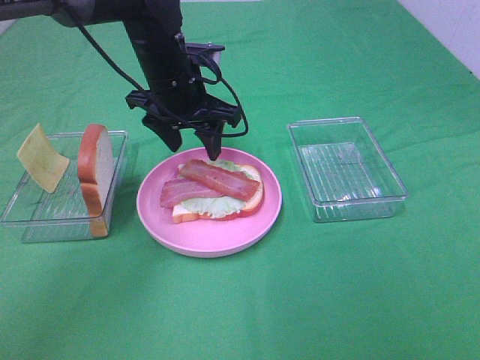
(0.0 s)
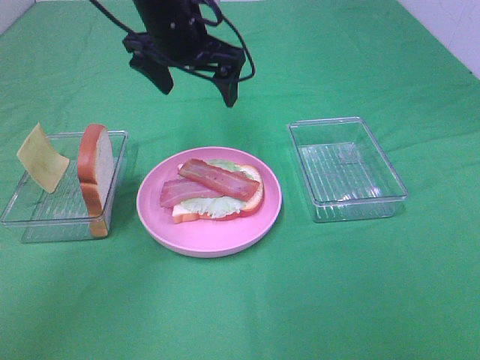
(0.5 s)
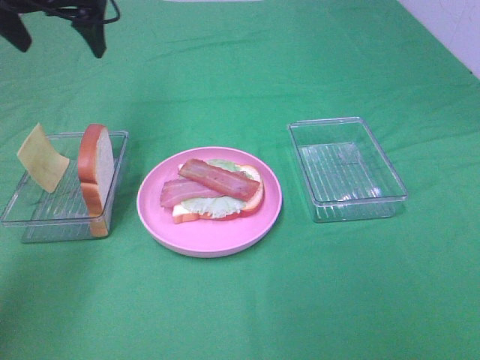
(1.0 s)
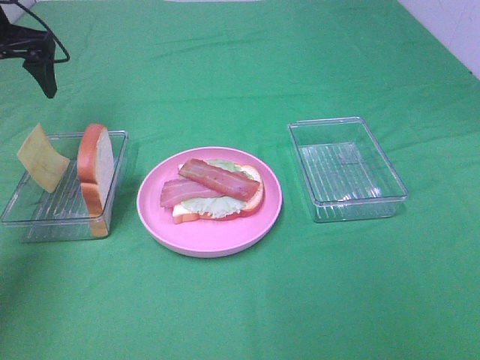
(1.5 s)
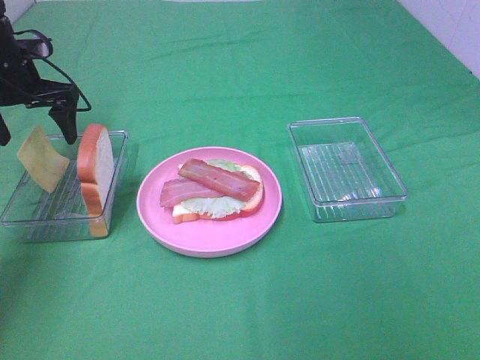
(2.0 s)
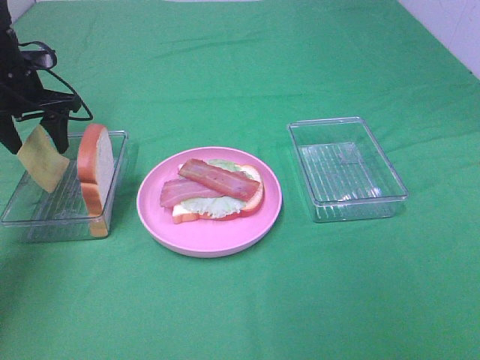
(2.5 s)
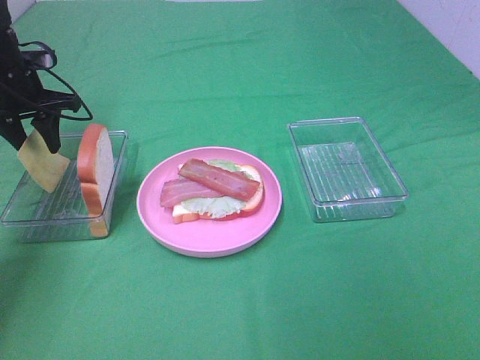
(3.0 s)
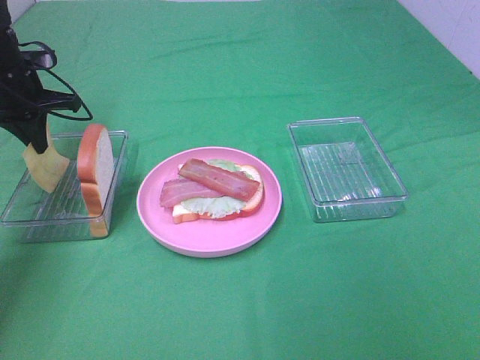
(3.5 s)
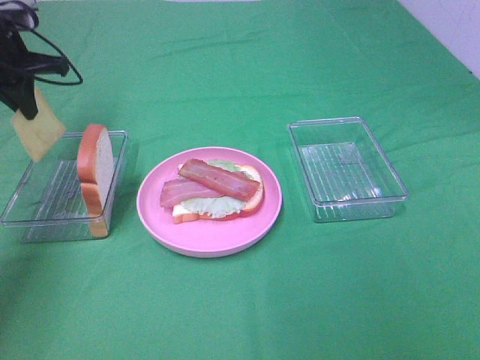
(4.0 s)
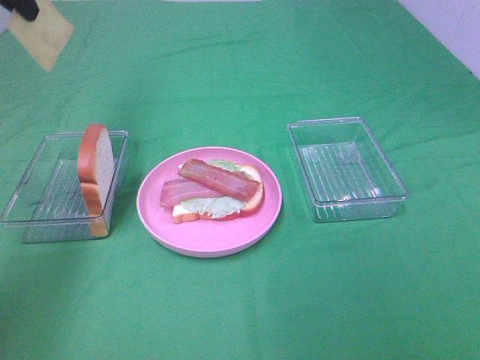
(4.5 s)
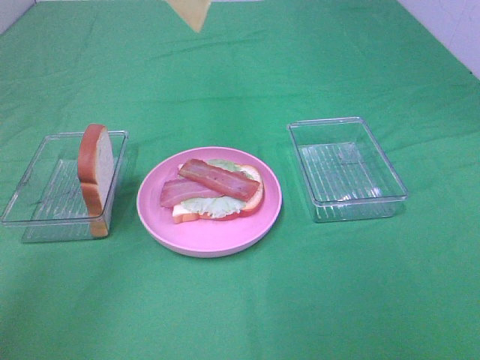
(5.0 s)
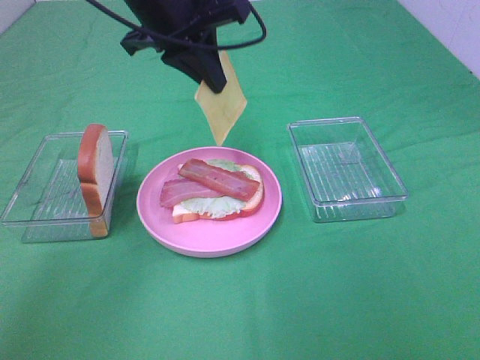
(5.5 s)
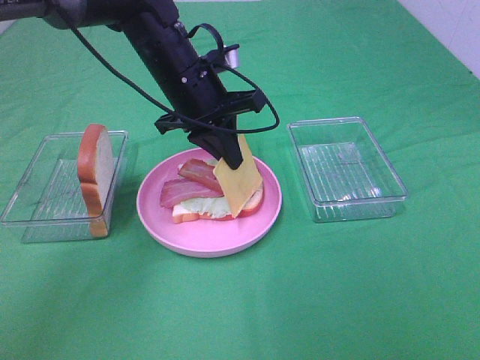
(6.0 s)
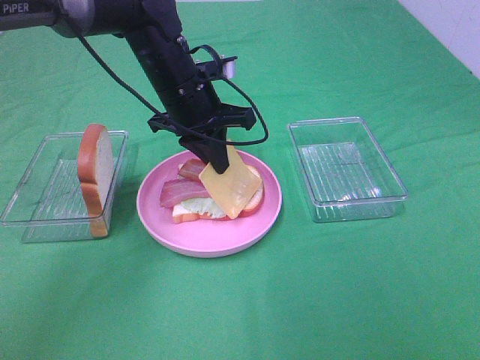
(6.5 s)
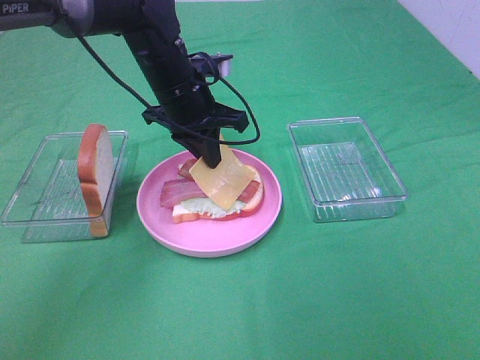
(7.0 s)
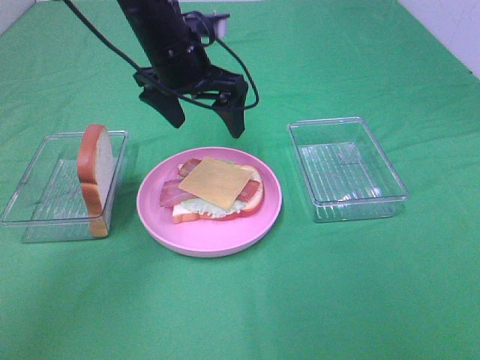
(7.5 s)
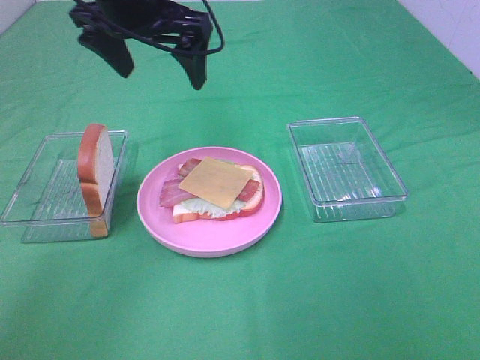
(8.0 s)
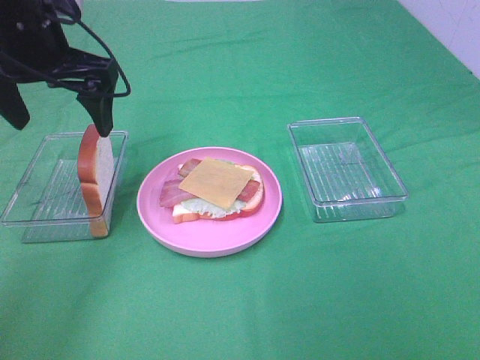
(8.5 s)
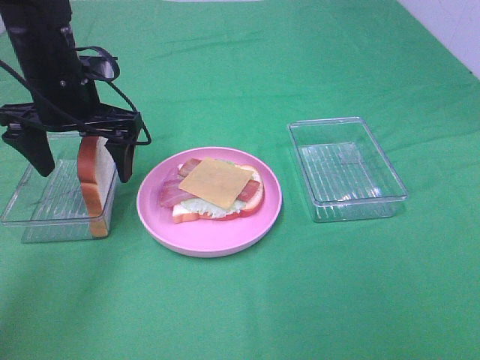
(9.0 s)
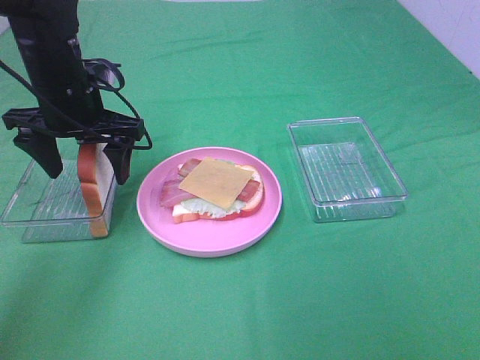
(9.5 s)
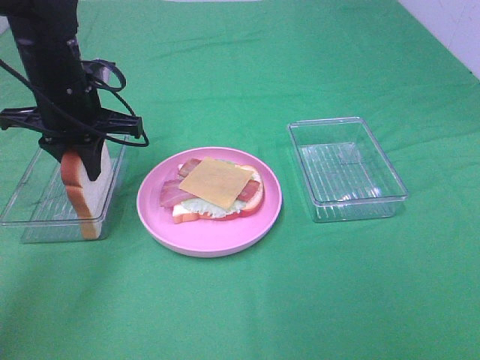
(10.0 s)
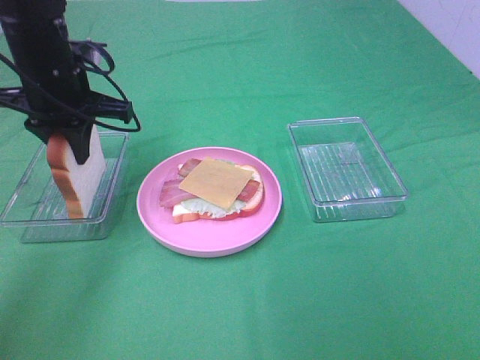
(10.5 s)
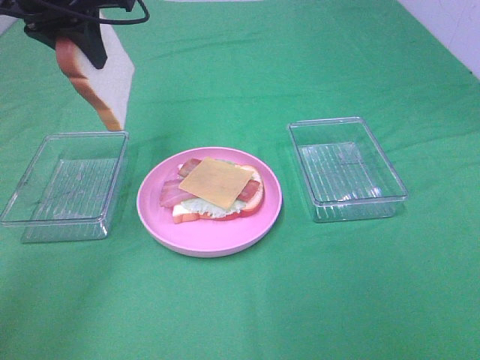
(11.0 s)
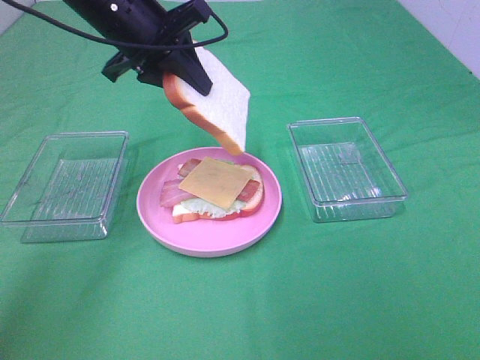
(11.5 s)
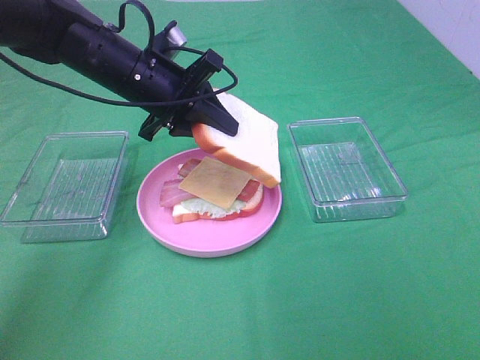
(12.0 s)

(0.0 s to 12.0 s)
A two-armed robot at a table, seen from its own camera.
Task of the whole recording: Make sandwiches.
Step, 0.5 s - 3.5 s: Left hand:grab the cheese slice.
Step, 4.0 s - 7.0 s: Left hand:place the cheese slice on top of the bacon.
Step, 7.5 s - 9.5 s: Left hand:grab the bread slice.
0.0 s - 2.0 s: The left gripper goes about 25 cm to the left.
2.0 s - 4.0 s: The left gripper moves upward, some 5 cm, and closes its fingers.
4.0 s - 6.0 s: The left gripper goes some 25 cm to the right.
6.0 s - 8.0 s: The left gripper is displaced upward and to the left by roughly 15 cm, and opens its fingers.
8.0 s - 10.0 s: The left gripper travels downward and to the left by approximately 15 cm, and closes.
10.0 s - 12.0 s: The left gripper travels to the right by approximately 5 cm, and moves some 15 cm upward and comes back.

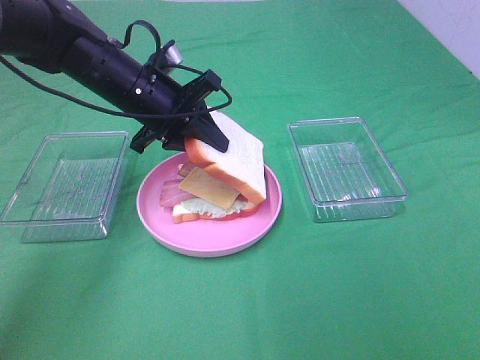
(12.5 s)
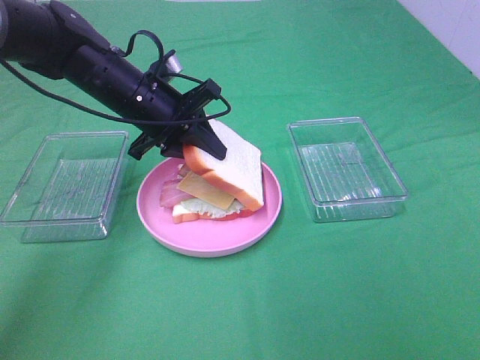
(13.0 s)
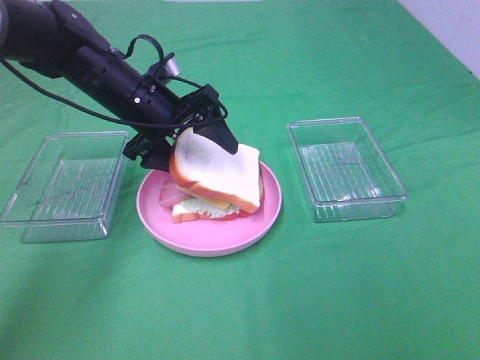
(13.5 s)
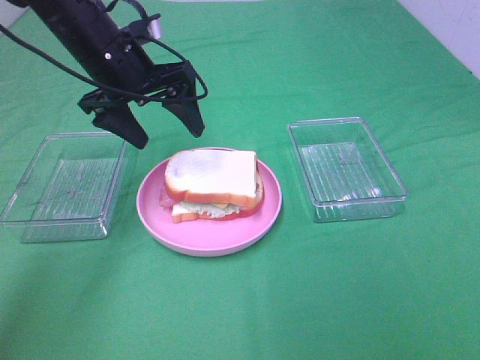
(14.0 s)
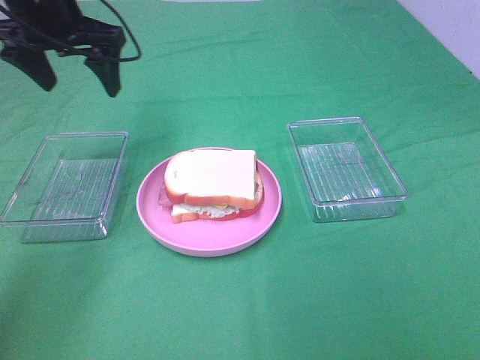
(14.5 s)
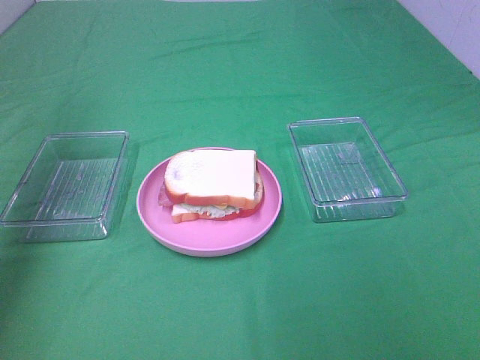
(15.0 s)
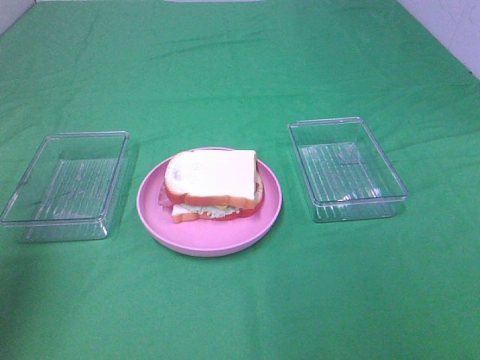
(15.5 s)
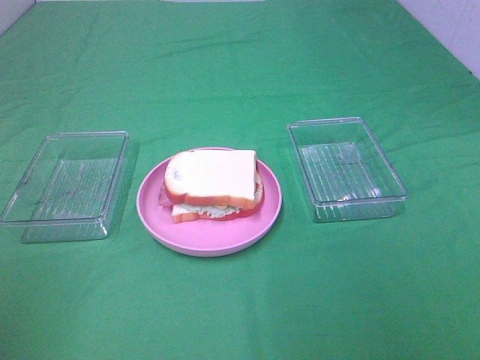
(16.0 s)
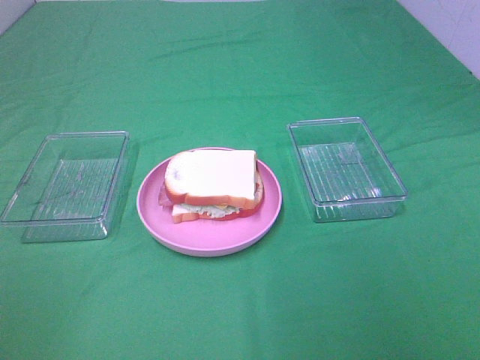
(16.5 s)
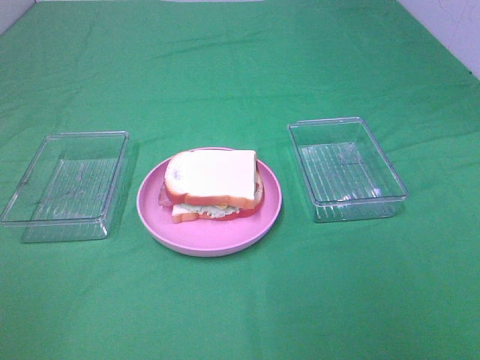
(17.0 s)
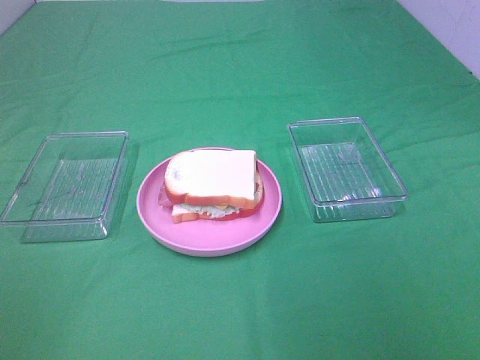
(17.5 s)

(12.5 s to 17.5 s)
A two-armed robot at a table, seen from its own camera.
Task of the whole recording: Make sandwiches.
12.5 s - 15.0 s: The left gripper shifts roughly 25 cm to the left and upward, and opens.
15.0 s - 17.5 s: The left gripper travels backward by about 35 cm.

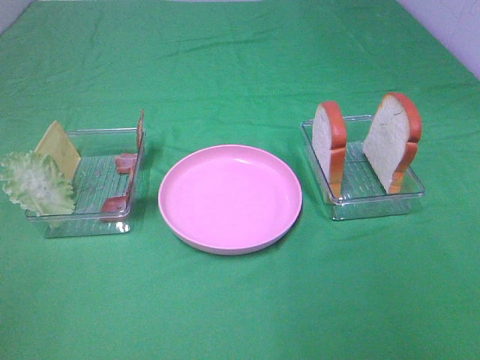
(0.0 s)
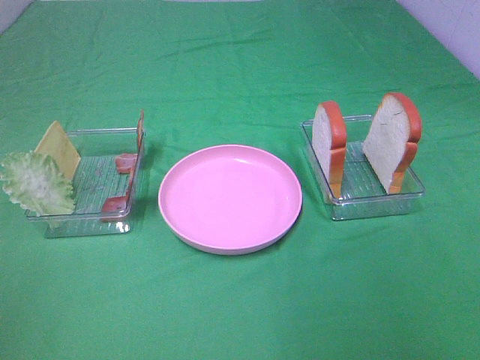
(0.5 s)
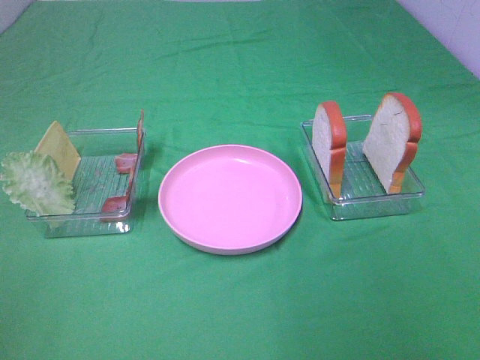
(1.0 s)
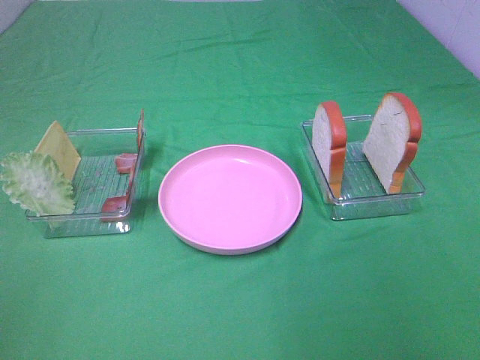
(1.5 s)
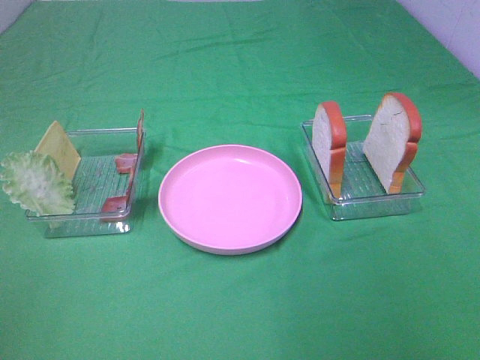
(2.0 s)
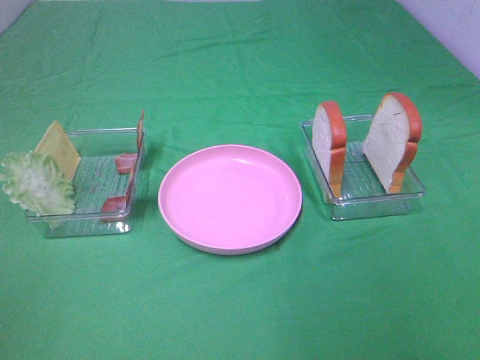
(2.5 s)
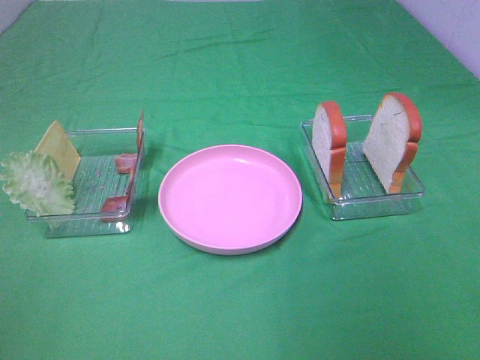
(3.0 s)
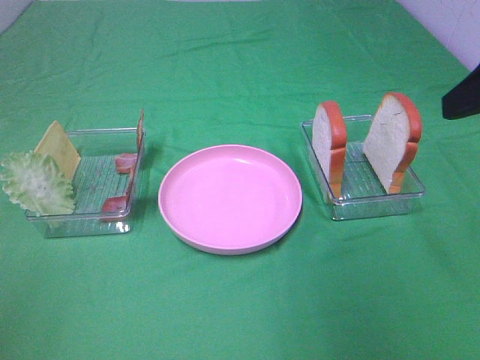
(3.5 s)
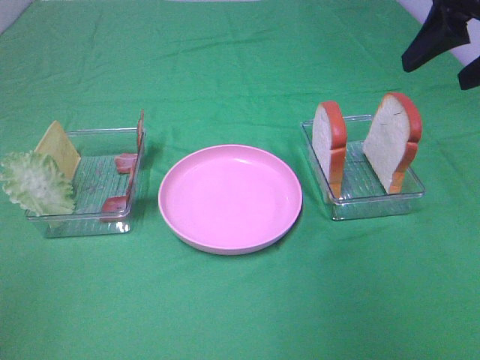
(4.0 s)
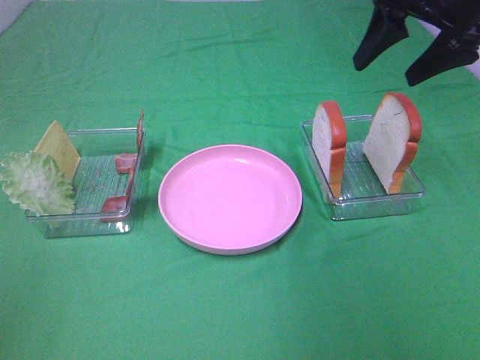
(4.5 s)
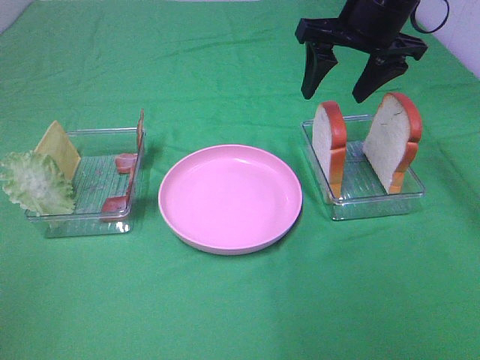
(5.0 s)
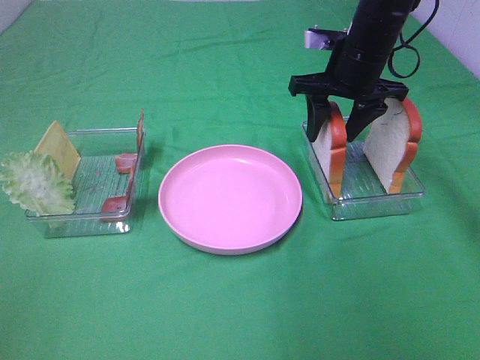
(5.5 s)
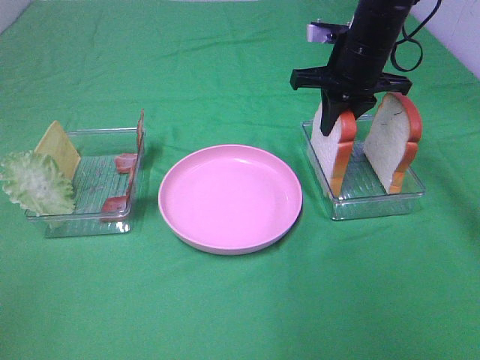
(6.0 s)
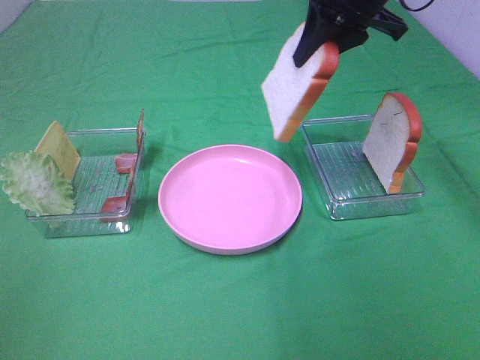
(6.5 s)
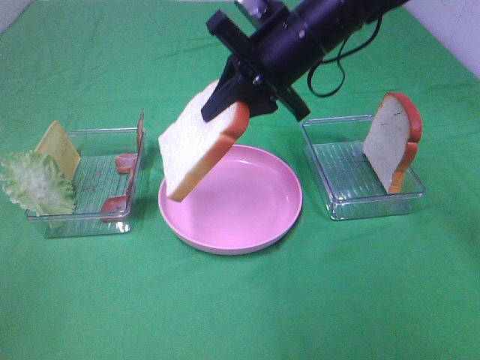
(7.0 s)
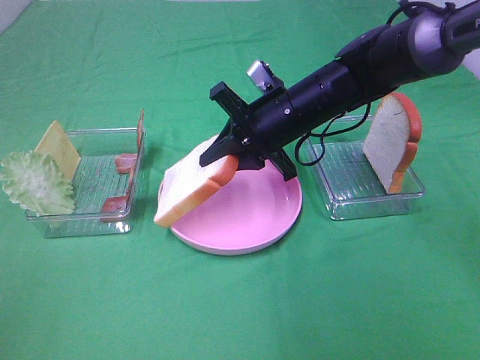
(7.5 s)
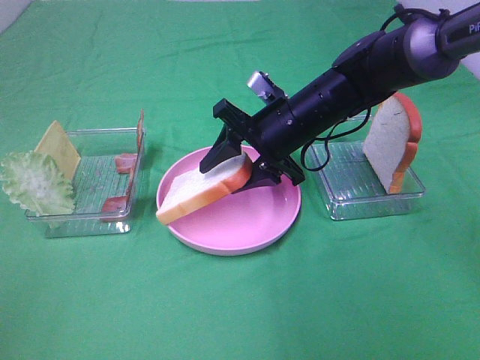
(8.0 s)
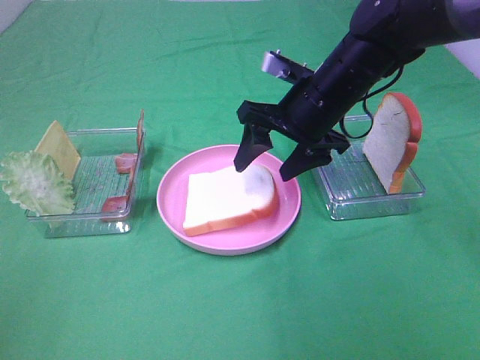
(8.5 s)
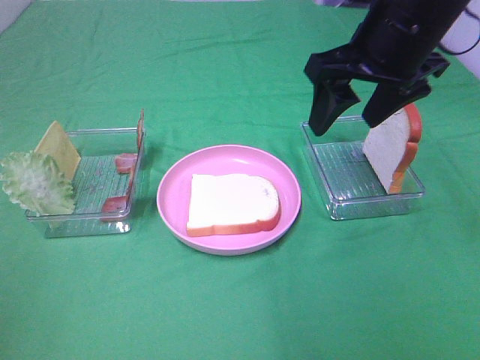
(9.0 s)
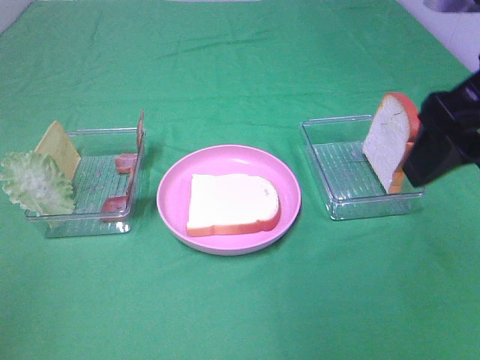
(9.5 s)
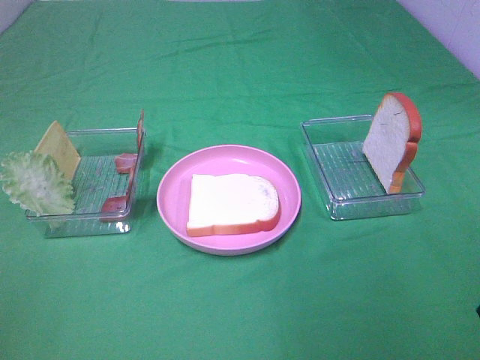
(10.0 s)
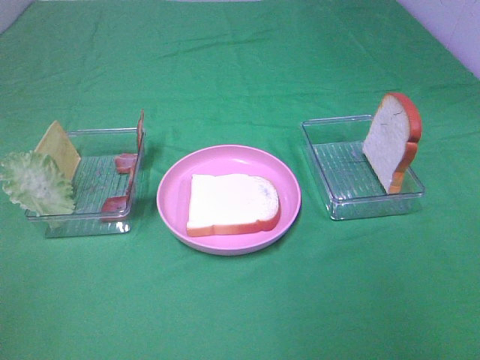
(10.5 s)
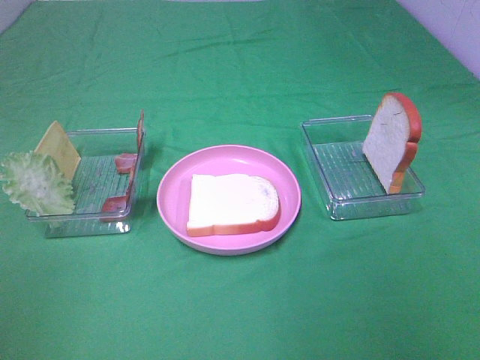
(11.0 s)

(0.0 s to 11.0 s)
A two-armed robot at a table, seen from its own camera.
Task of the whole recording: Make sandwiches.
Step, 0.0 s - 5.5 s: Right hand:grab the bread slice.
Step, 6.0 s - 8.5 s: Right hand:place the bread slice on the plate.
0.0 s - 2.0 s: Both grippers stay about where they are.
2.0 s - 3.5 s: The right gripper heads forward, covering roughly 20 cm.
3.5 s - 5.5 s: The right gripper moves forward, downward and to the left, roughly 30 cm, and closes its fingers.
5.5 s - 7.5 s: The right gripper goes about 10 cm to the left and backward, goes upward and returns, some 10 cm each way, and closes its fingers.
7.5 s - 9.0 s: The right gripper goes approximately 20 cm upward, to the right and backward, and opens up.
9.0 s - 11.0 s: The right gripper is displaced backward and to the right by about 35 cm.
